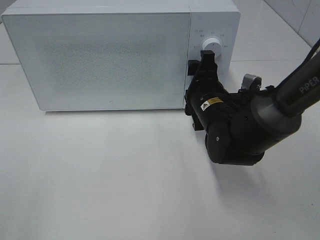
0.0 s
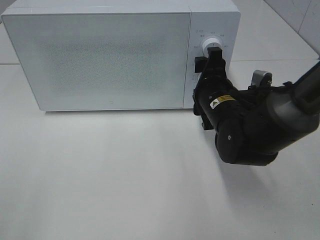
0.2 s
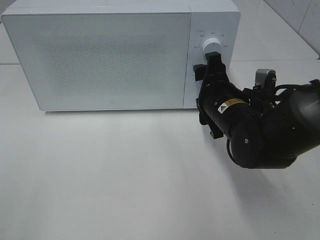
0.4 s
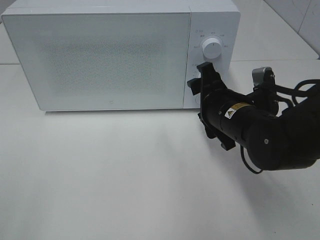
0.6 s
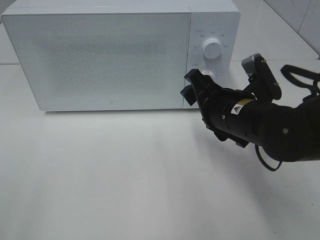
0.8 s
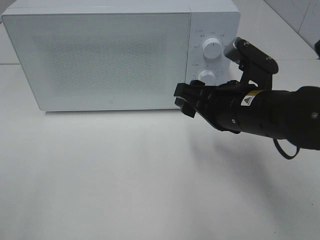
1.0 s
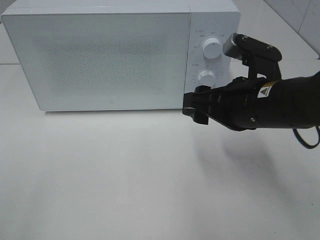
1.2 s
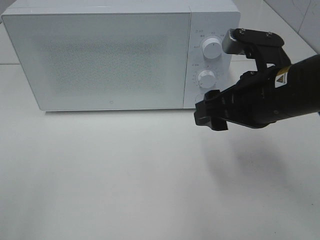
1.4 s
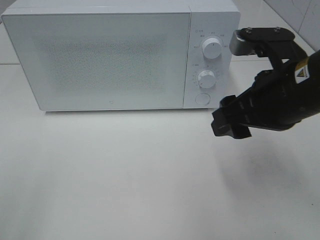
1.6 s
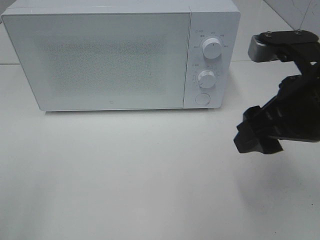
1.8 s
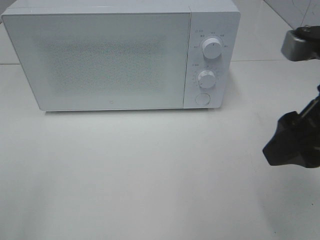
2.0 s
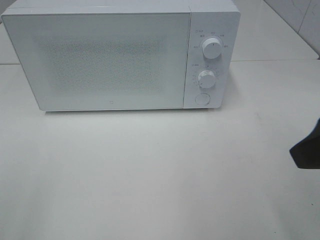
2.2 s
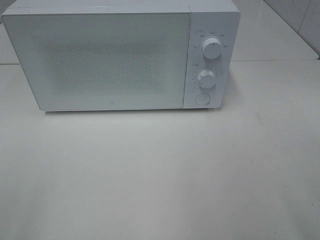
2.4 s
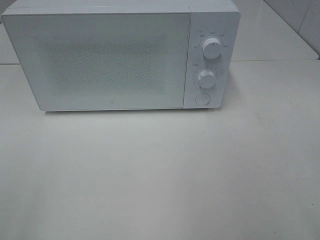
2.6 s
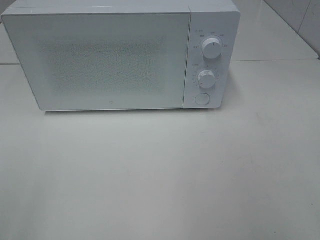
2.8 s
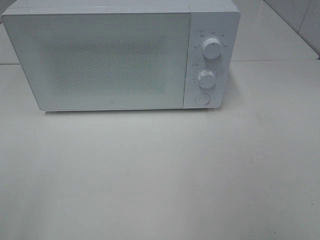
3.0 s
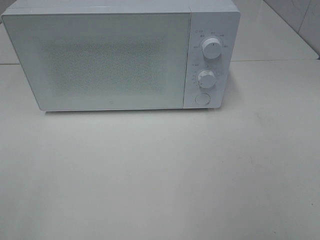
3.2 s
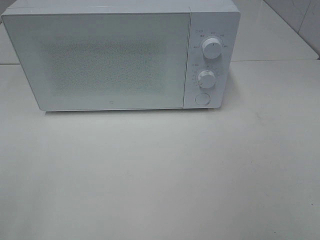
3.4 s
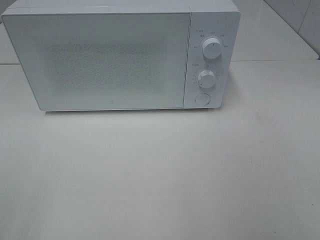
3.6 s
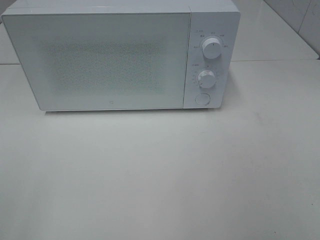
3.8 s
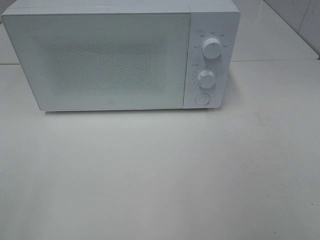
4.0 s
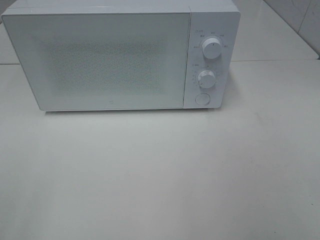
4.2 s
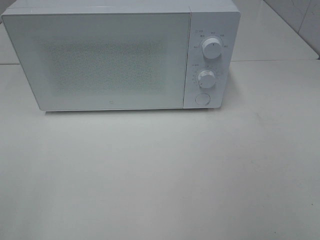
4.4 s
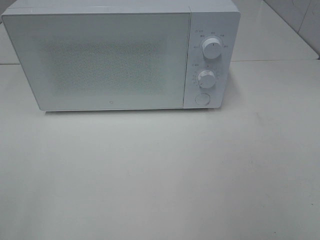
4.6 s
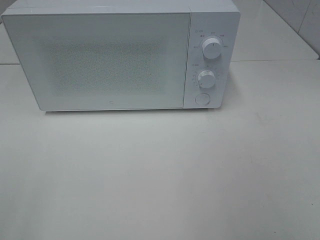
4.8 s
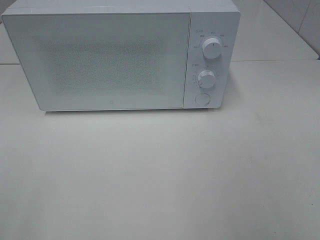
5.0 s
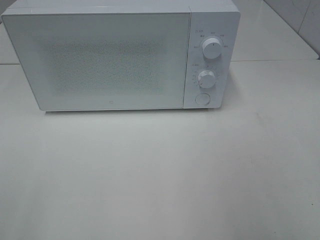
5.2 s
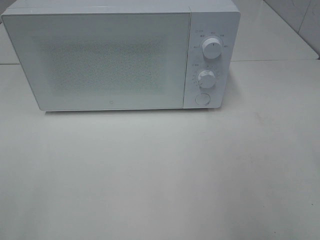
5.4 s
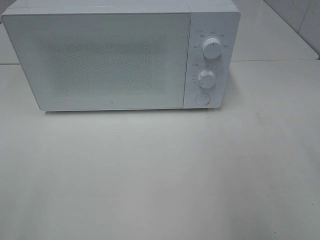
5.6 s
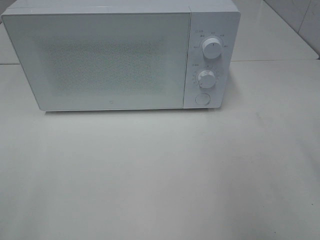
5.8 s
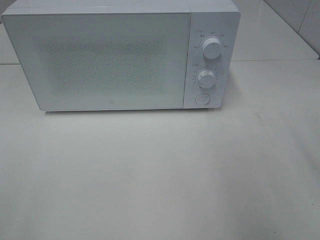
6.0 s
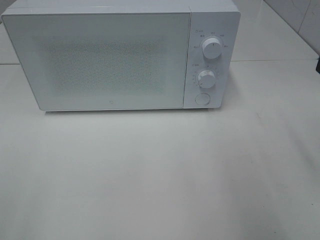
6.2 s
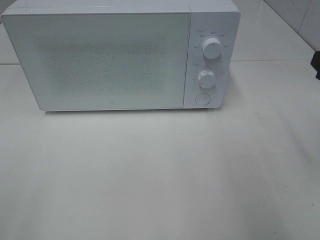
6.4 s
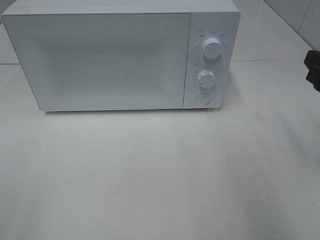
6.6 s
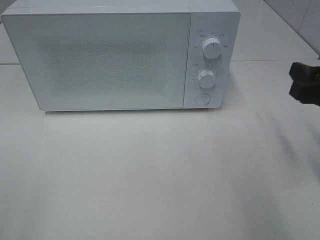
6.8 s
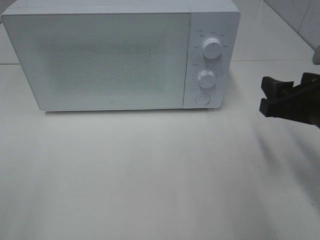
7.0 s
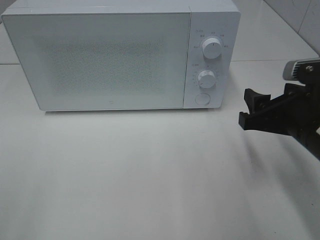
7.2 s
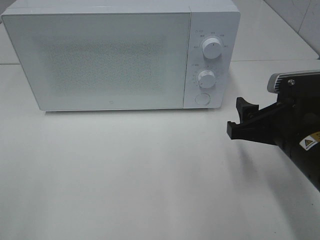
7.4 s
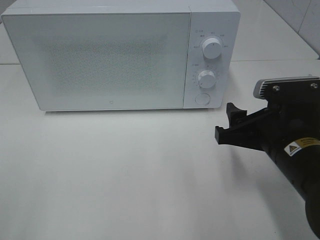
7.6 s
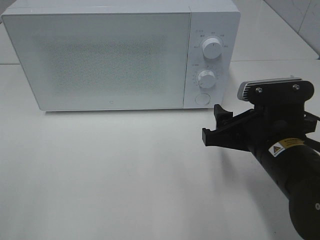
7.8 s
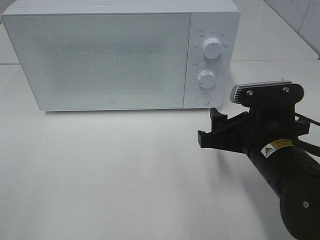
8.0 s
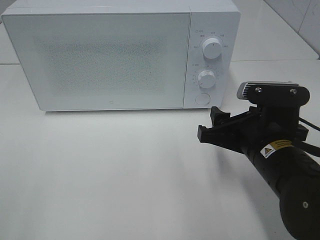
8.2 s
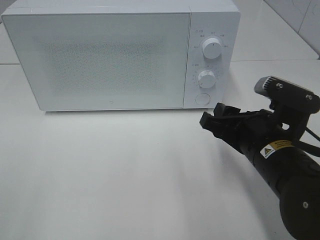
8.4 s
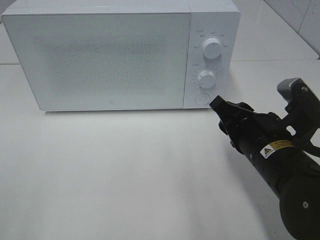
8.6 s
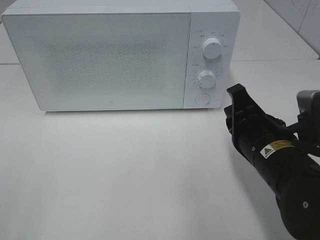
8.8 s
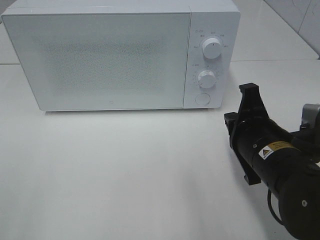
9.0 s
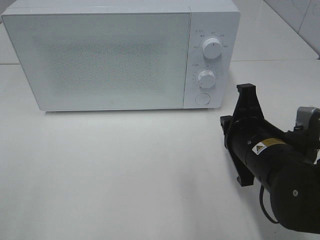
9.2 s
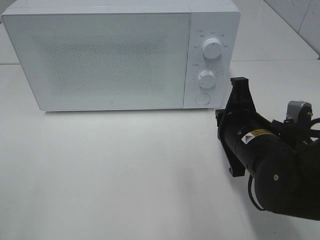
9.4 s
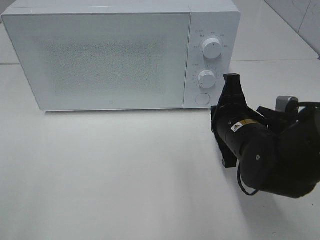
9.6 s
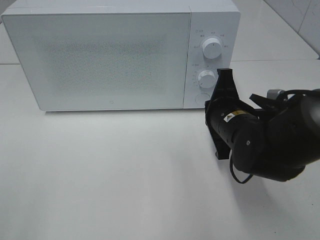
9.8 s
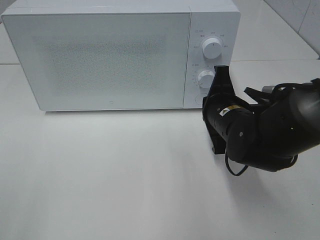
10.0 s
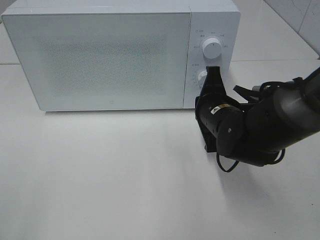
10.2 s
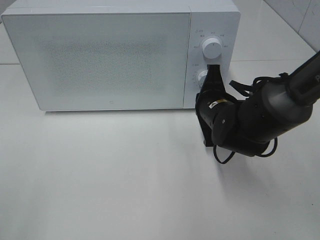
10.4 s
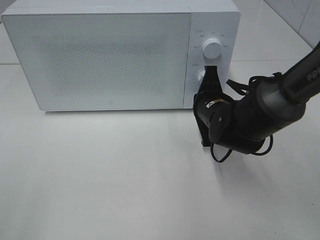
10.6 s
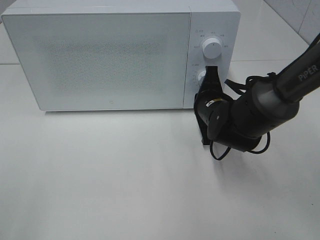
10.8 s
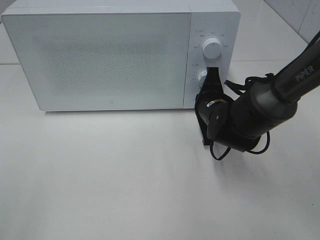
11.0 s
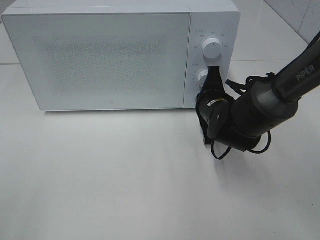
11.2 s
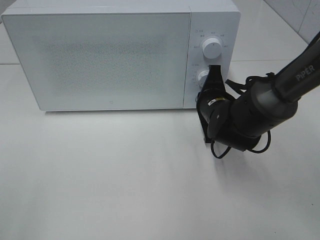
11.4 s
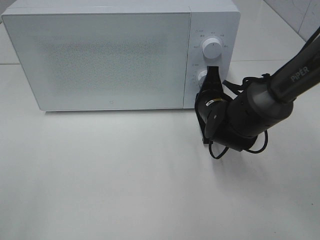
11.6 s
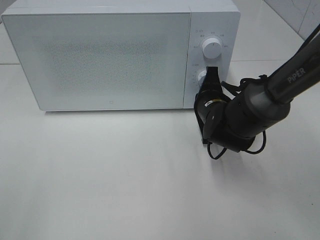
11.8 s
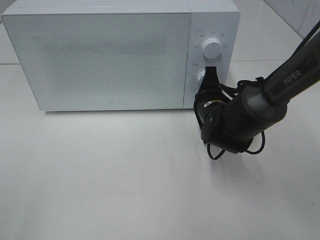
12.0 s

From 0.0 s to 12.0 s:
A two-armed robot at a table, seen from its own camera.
Task of the whole recording: Heat the burger.
From 0.0 s to 1.6 s: The right gripper is displaced upward, backward and to the right by approximately 15 cm.
From 1.6 s to 3.0 s: The right gripper goes some 25 cm backward, to the right and upward.
From 6.0 s to 7.6 s: The right gripper goes about 15 cm downward and to the left.
From 7.6 s to 9.0 s: The right gripper closes its fingers.
From 9.0 s to 10.4 s: The right gripper is displaced forward by roughly 10 cm.
From 10.4 s to 12.0 s: The grippers stay close to where they were, moving slightly.

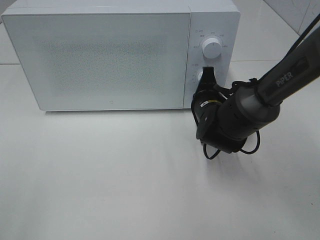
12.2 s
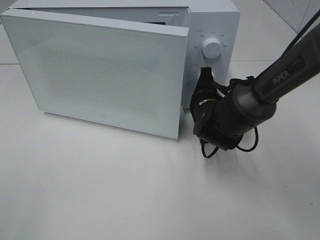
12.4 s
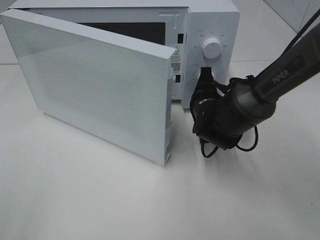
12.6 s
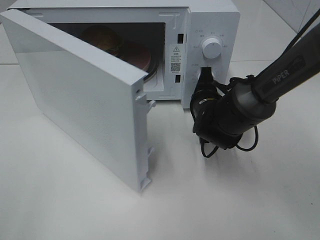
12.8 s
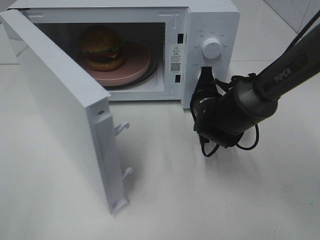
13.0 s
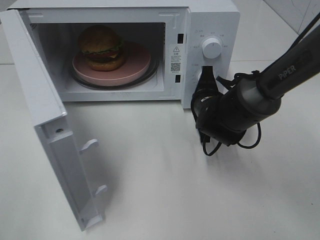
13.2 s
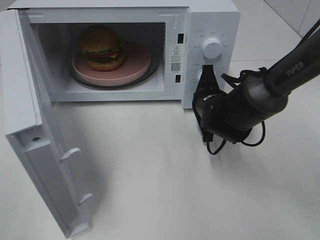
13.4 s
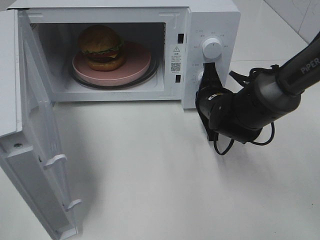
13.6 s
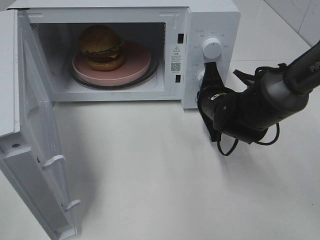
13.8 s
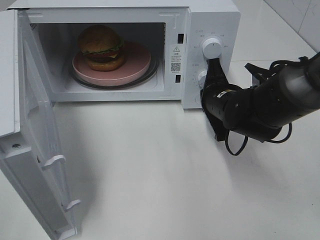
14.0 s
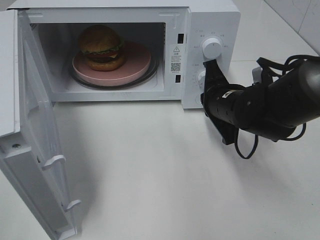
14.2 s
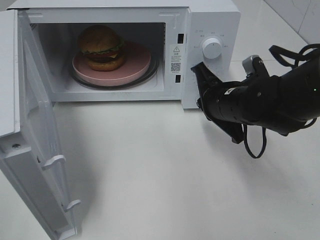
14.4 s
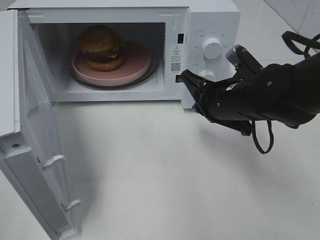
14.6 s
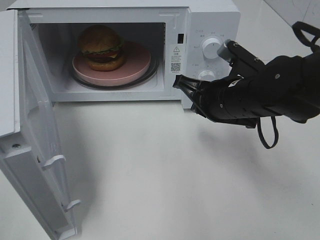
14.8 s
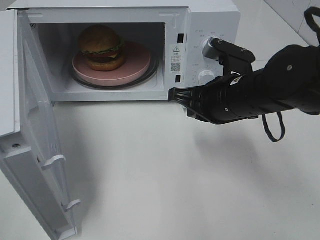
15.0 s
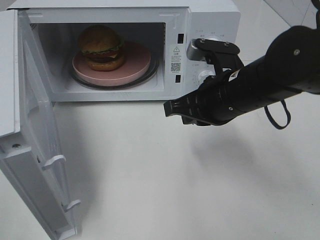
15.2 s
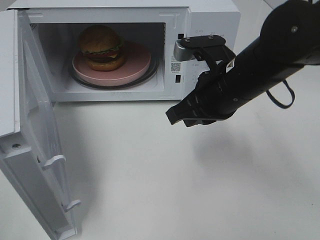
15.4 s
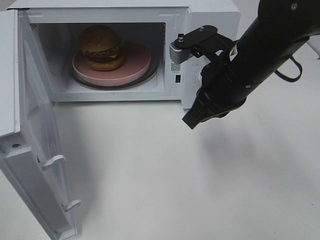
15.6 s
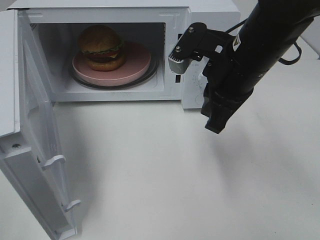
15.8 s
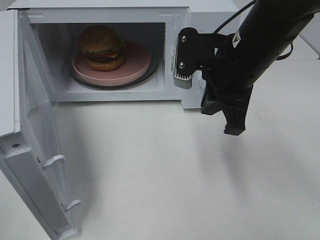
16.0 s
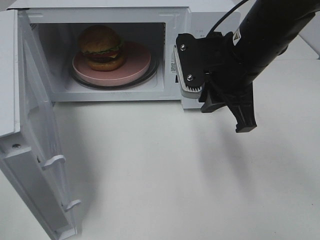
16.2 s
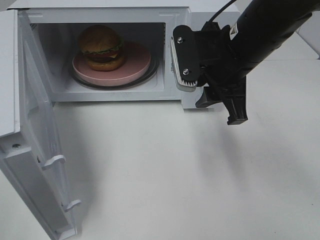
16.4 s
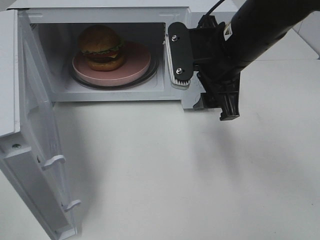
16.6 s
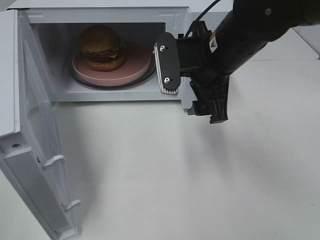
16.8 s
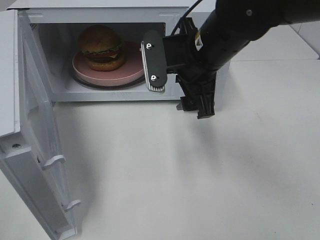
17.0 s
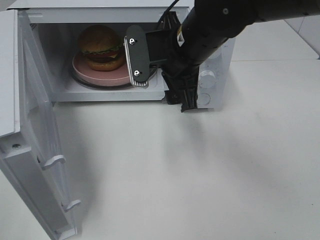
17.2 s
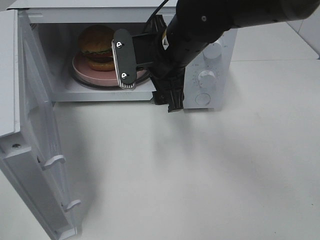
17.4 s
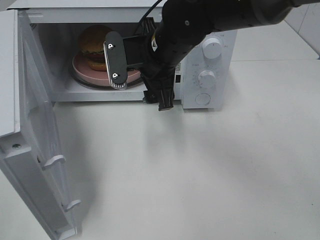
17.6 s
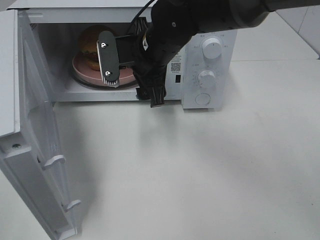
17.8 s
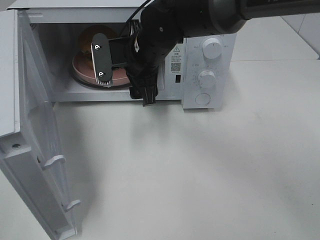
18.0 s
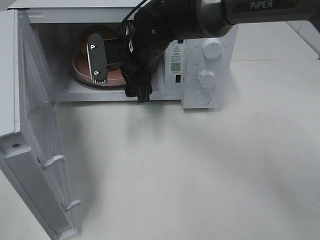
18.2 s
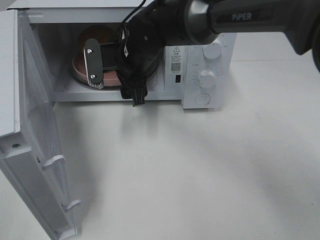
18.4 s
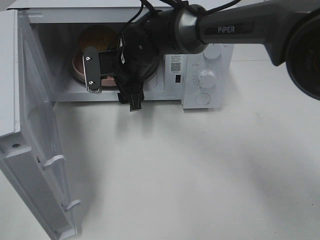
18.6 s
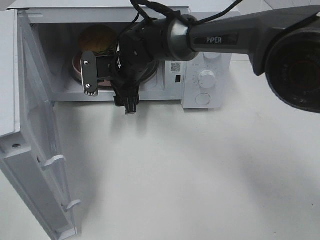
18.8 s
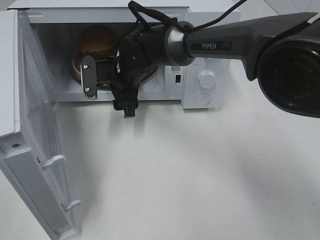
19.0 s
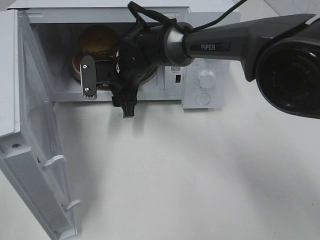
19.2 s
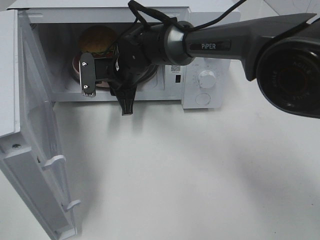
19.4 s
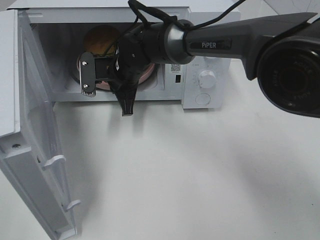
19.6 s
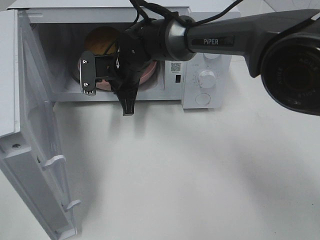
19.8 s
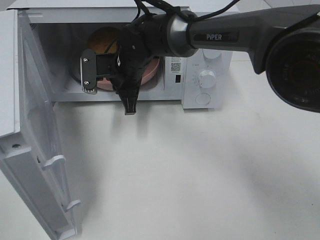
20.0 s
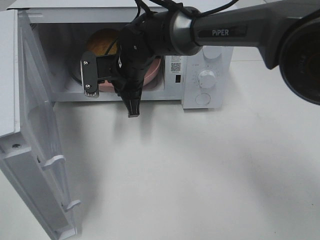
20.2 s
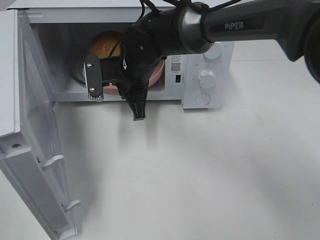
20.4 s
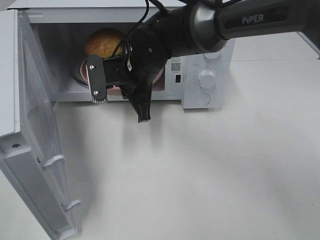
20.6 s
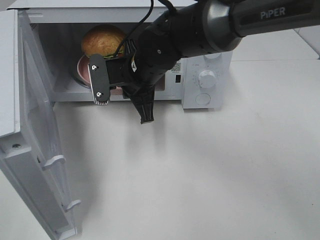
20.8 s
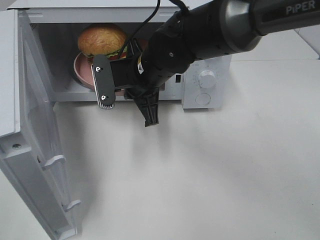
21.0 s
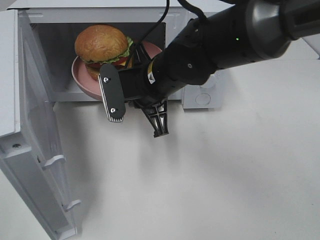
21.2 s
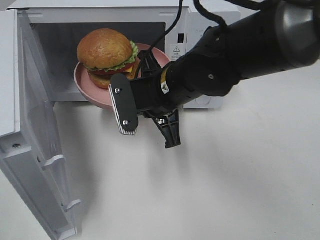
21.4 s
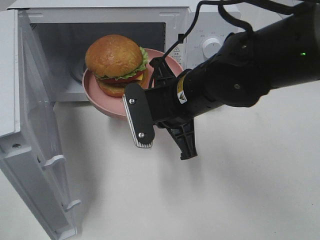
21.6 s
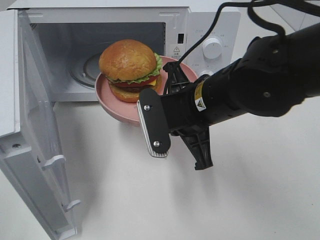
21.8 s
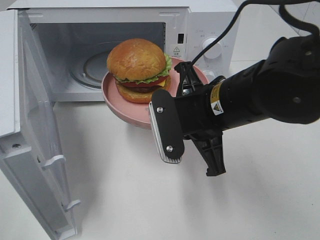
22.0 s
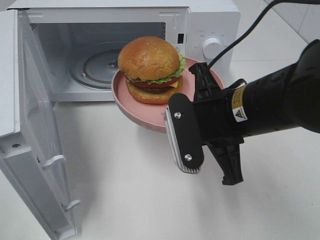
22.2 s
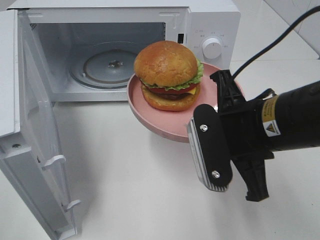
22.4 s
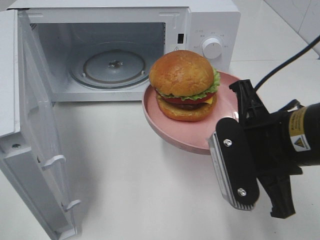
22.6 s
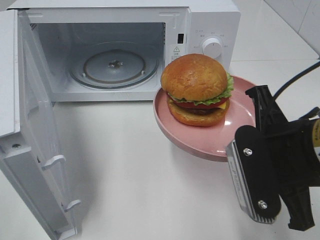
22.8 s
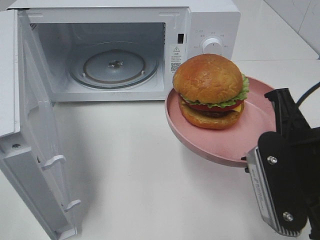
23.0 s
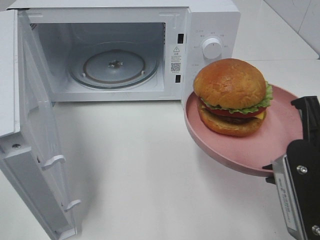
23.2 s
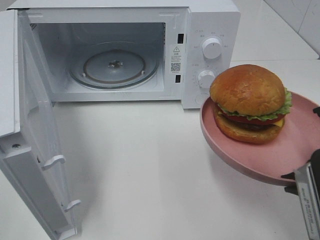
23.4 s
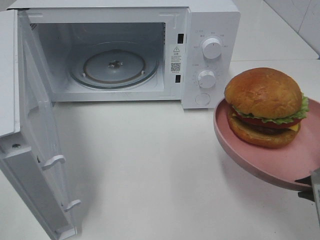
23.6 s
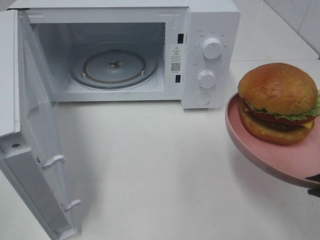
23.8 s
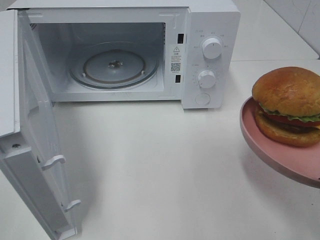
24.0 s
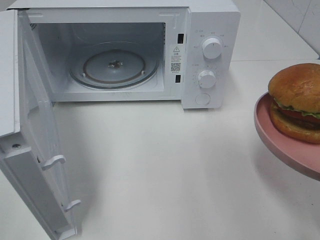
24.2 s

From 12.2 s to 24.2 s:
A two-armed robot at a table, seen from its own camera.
Task of the whole recording: Heat the burger.
Step, from 14.0 s to 19.4 s: Right hand: grab the plate with the hamburger.
From 13.8 s to 15.2 s: The right gripper travels upward and backward by approximately 10 cm.
From 15.2 s to 16.6 s: The right gripper travels upward by some 5 cm, and opens.
From 16.6 s to 18.2 s: The right gripper heads to the left, forward and downward, covering about 15 cm.
From 18.2 s to 19.8 s: The right gripper ends up roughly 5 cm from where it was, and closes its fingers.
From 19.8 s to 21.2 s: The right gripper goes about 10 cm backward and to the right.
From 21.2 s to 22.6 s: The right gripper moves backward and to the right, about 20 cm.
From 22.6 s to 24.2 s: The right gripper travels to the right and backward by approximately 10 cm.
